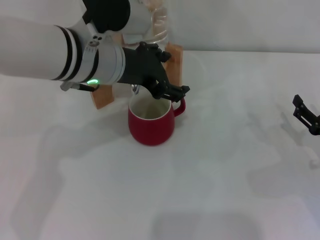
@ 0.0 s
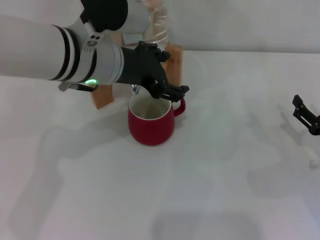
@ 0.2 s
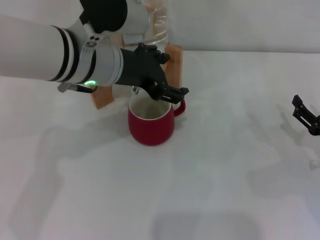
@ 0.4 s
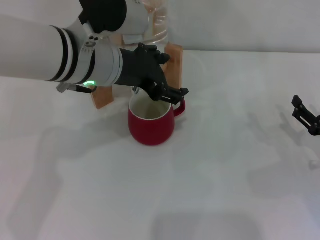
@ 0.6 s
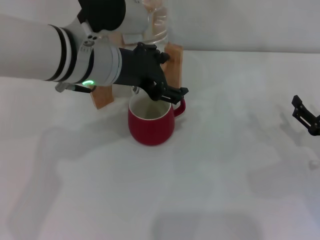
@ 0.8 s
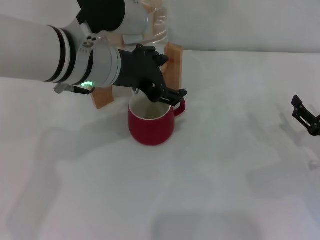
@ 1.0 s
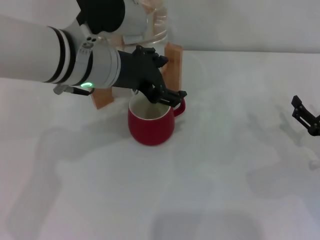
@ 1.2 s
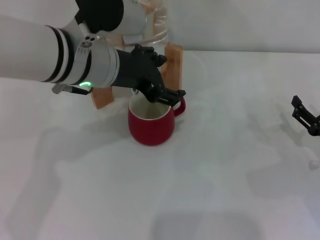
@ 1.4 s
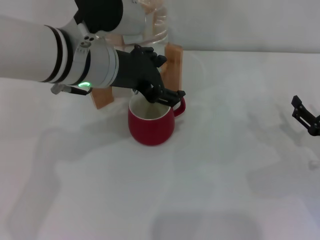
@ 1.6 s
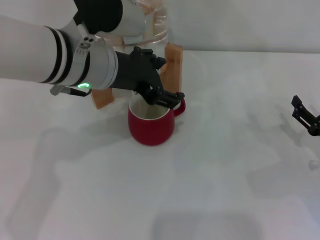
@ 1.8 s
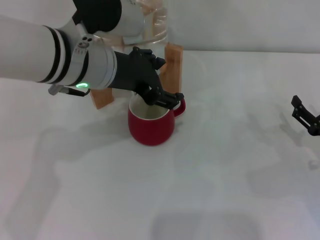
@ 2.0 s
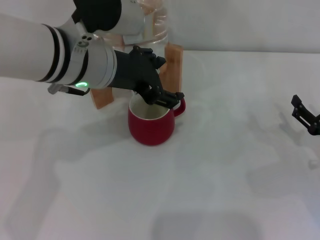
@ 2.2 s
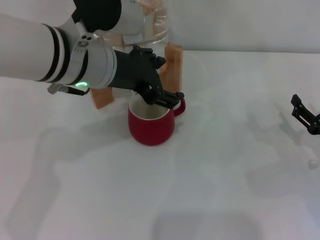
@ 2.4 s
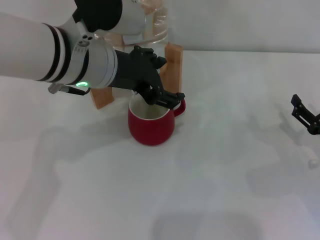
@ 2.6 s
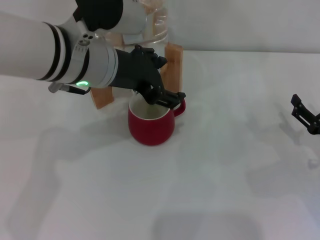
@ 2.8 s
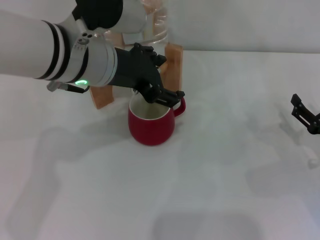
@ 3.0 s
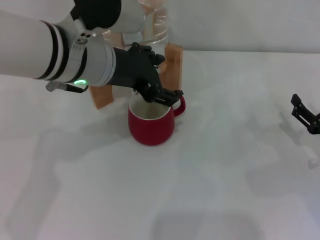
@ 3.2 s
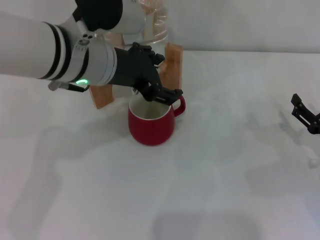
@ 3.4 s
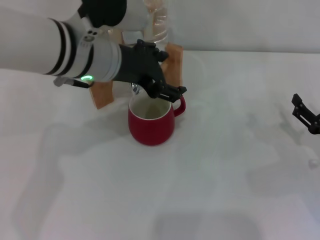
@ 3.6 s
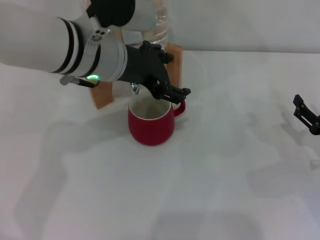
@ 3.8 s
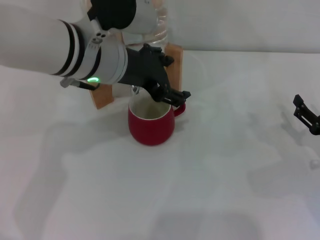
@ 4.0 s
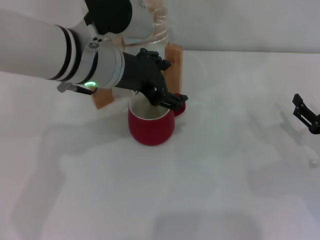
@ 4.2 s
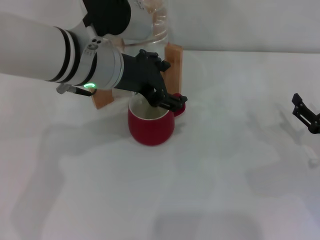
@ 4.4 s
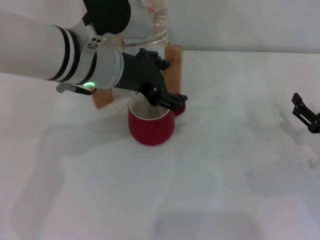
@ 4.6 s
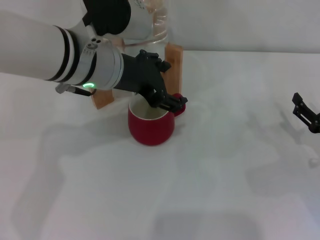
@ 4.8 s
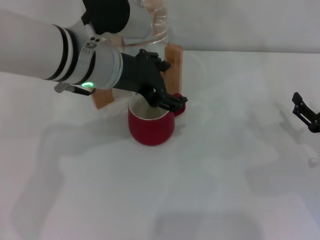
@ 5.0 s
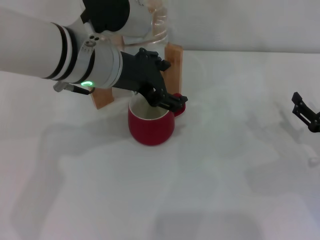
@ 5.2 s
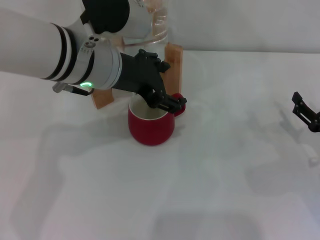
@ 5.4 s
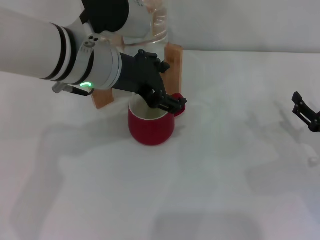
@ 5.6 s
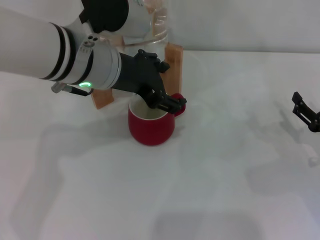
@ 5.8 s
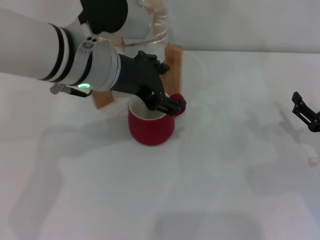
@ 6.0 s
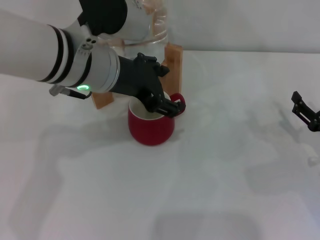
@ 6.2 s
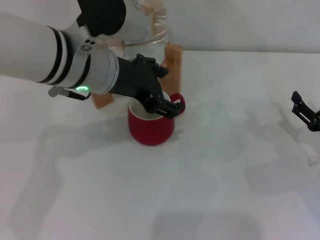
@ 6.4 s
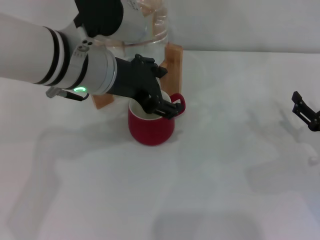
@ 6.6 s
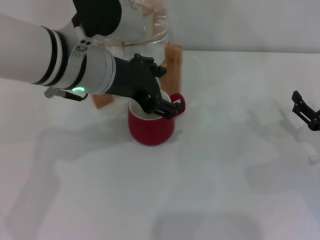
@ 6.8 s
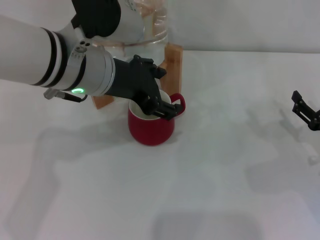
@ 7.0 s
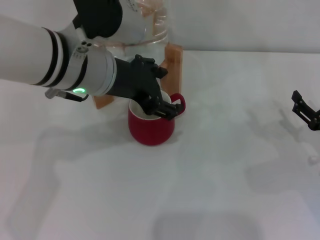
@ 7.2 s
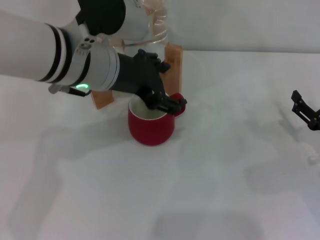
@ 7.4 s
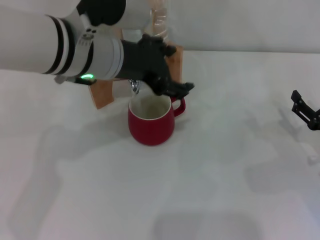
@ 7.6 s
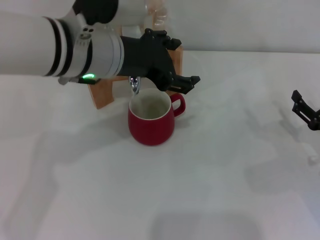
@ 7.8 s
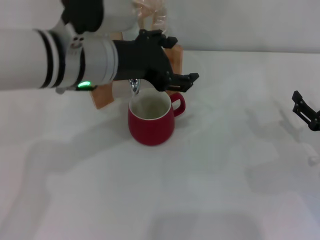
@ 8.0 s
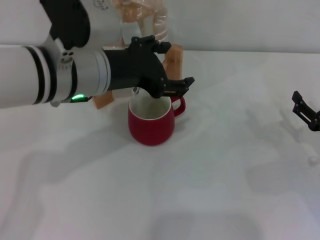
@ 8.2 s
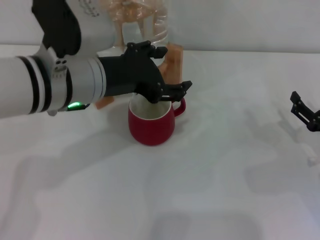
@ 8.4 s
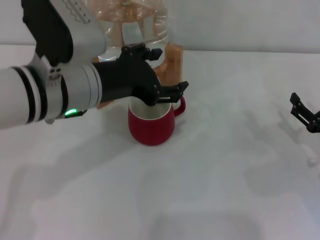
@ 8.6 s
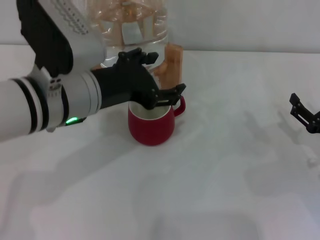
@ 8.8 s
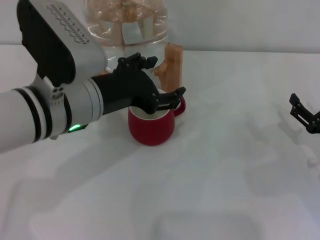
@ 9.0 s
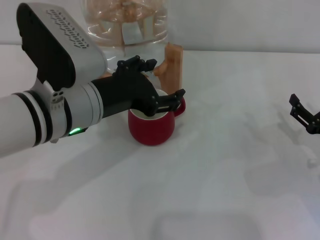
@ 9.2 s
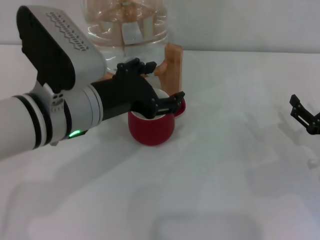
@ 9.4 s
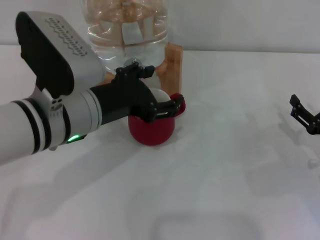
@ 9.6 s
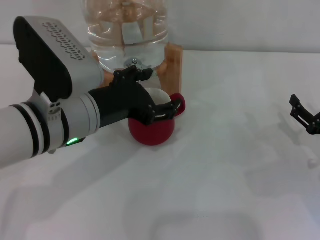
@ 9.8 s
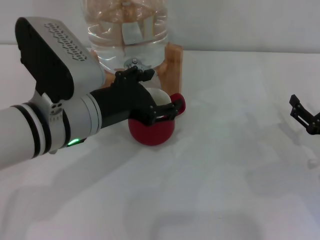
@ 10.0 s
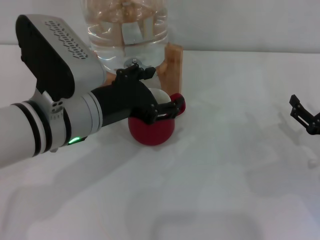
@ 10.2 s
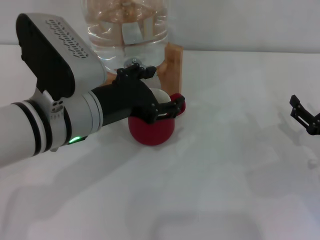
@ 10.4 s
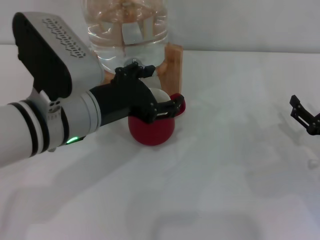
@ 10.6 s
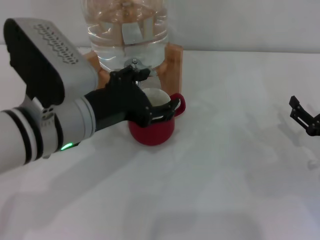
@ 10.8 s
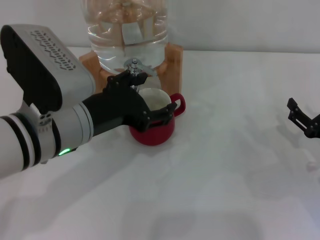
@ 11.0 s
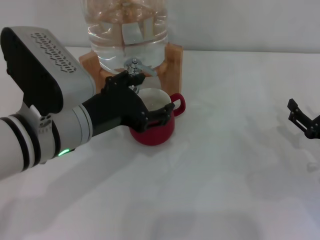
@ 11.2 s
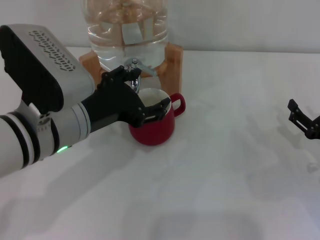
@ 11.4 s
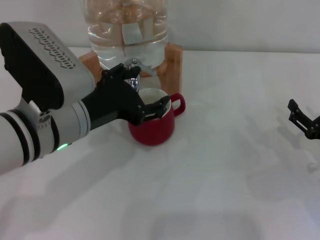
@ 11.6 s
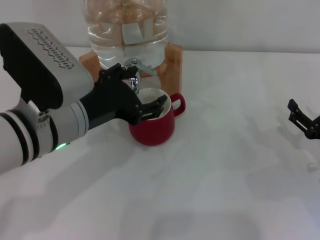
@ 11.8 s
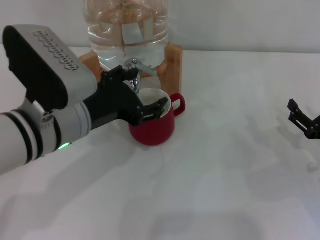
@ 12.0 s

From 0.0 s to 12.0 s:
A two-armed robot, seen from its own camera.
Task of the whole recording: the right gripper pick up the red cup and place it horizontally under the faucet, the left gripper turn on the faucet to fill the cup, and then turn off the faucet.
Step, from 0.0 s to 12.0 s: Open the dispenser valve and fill the cup with water with the left gripper.
From 0.0 s to 1.6 s: Both grippers stay about where they are.
From 1.6 s to 3.0 s: Both grippers stay about where they are.
From 3.0 s to 4.4 s: The grippers move only a little.
From 4.4 s to 6.0 s: Neither gripper changes place.
From 6.0 s to 7.6 s: The grippers make only small movements.
From 7.6 s to 9.0 s: The left gripper travels backward by approximately 5 cm.
From 9.0 s to 12.0 s: There are only small adjustments of the grippers.

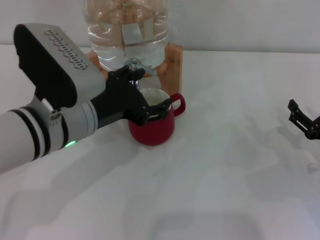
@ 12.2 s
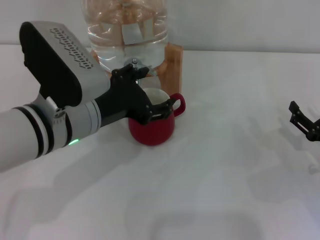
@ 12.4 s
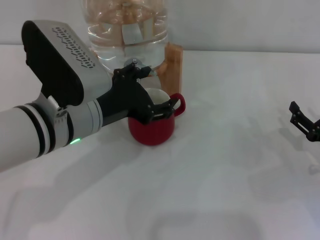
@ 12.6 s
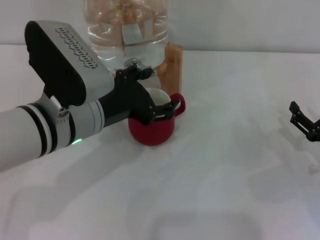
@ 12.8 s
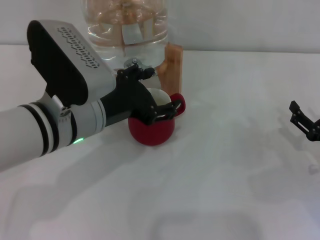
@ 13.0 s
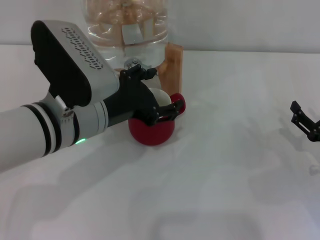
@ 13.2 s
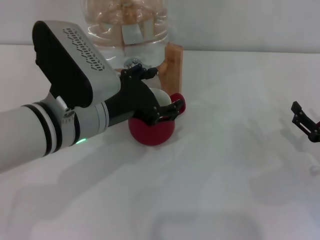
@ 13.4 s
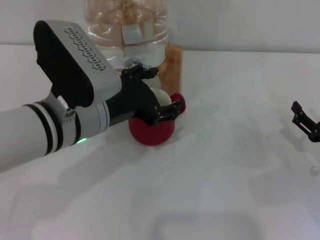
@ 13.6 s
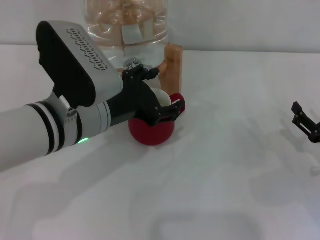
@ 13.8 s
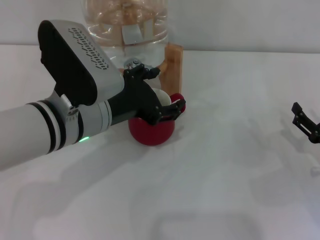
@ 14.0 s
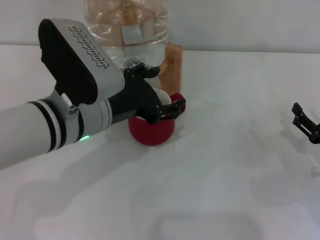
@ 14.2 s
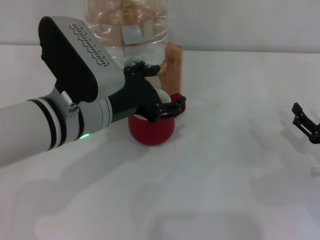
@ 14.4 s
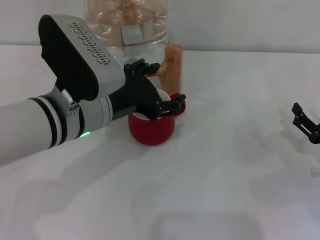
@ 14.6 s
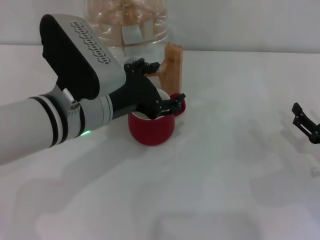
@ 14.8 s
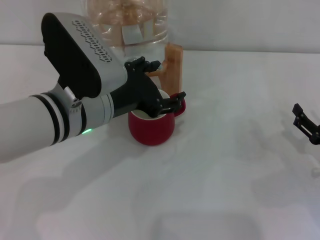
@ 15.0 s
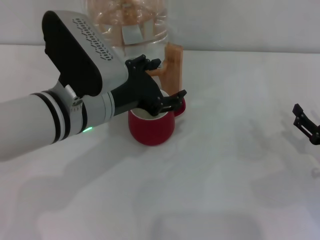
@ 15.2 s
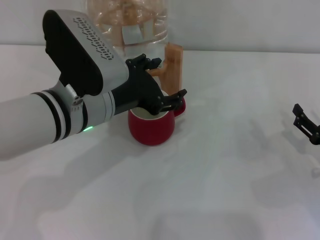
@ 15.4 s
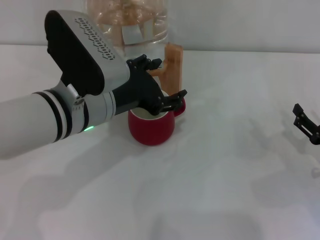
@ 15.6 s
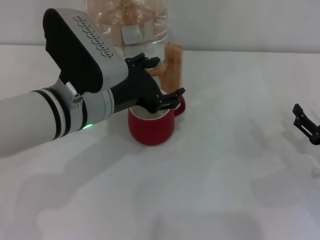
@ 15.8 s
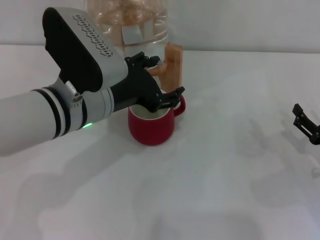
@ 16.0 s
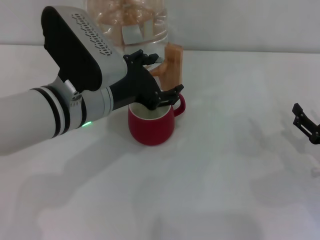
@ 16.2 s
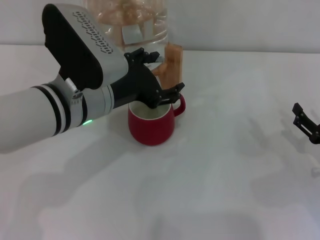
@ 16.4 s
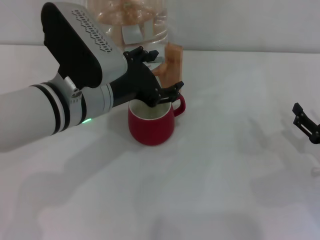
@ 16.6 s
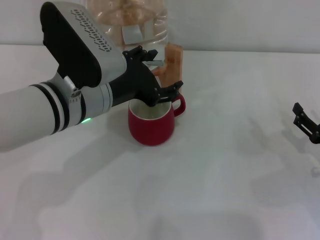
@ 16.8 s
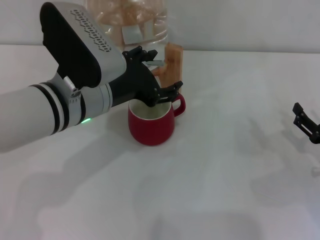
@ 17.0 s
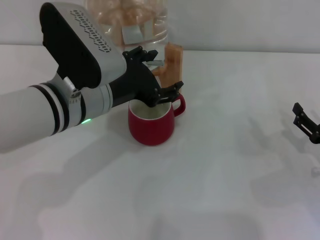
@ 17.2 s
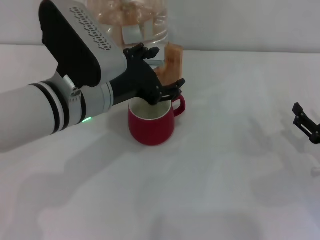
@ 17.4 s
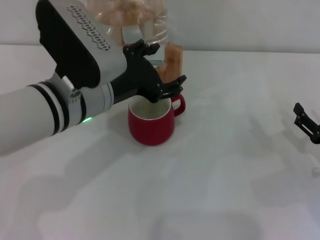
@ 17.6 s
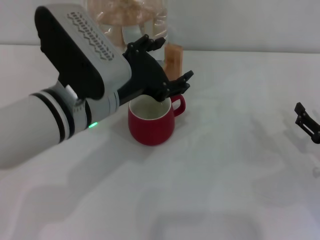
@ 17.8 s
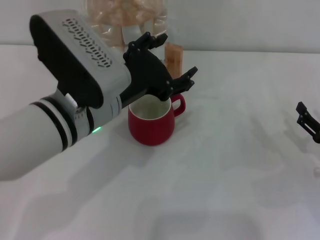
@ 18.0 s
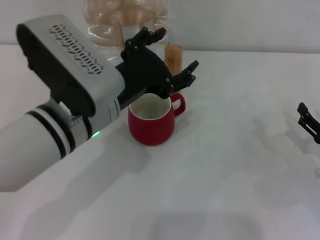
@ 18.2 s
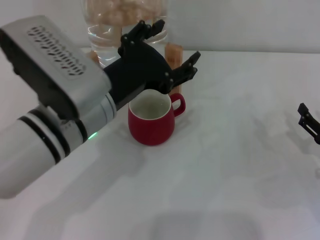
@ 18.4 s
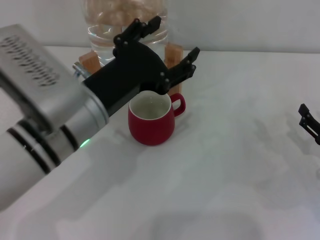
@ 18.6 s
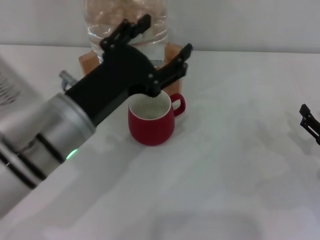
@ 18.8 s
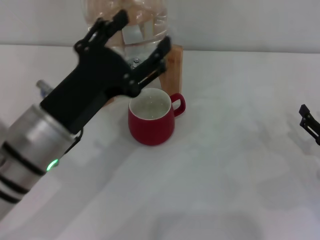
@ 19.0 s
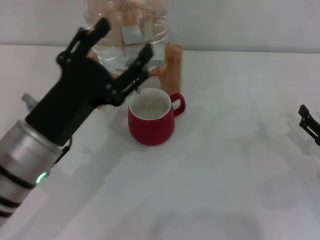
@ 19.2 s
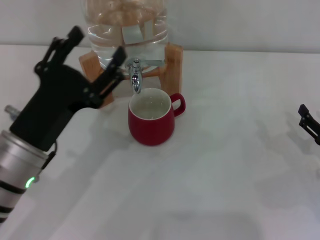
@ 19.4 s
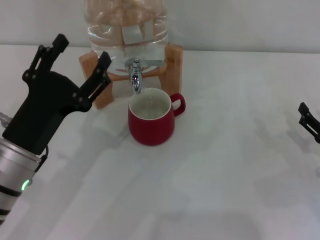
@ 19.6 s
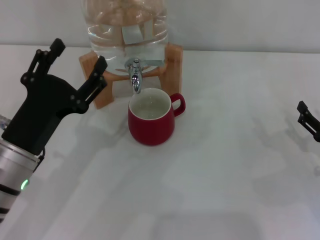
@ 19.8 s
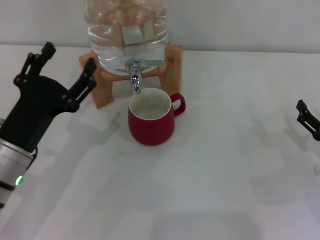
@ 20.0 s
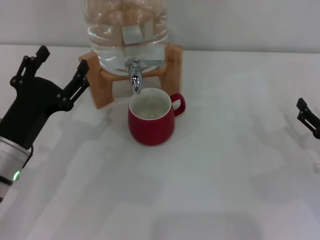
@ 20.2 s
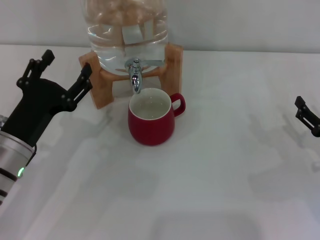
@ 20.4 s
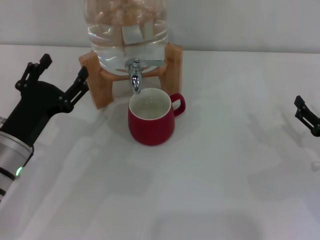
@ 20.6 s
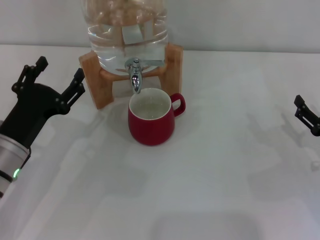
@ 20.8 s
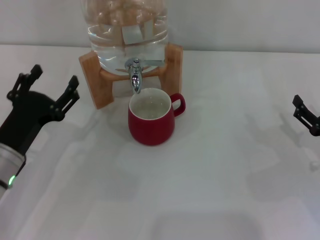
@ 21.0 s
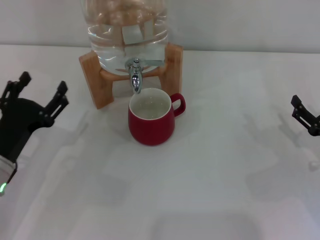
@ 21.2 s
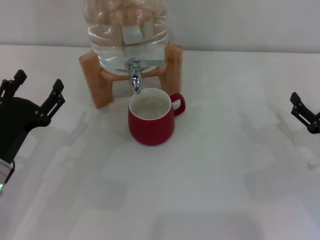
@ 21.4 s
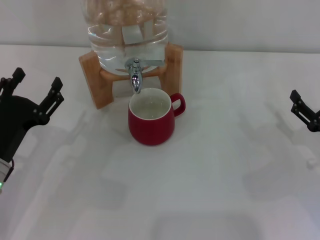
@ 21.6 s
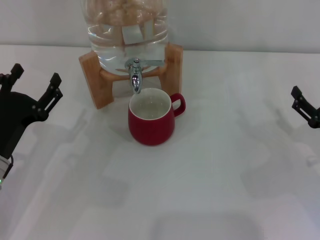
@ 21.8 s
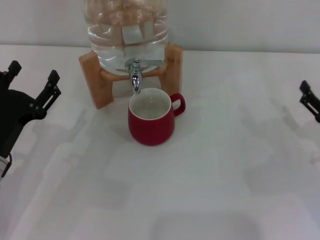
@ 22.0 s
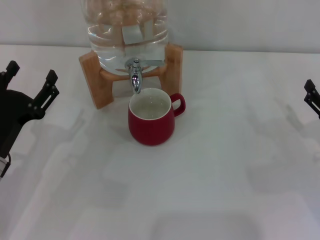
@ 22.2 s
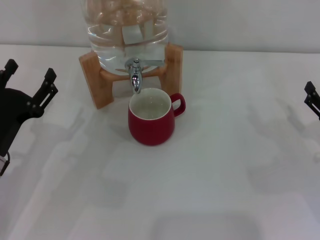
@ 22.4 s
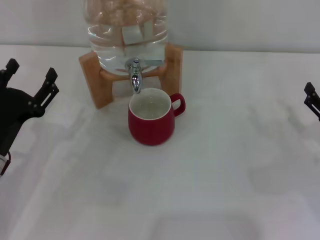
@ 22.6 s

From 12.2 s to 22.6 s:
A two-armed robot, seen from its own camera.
Task of the whole recording: the right gripper pick up the red cup and place it horizontally under the faucet, the left gripper turn on the faucet to fill the cup, and then turn off the faucet.
Step, from 12.2 s to 20.0 s: Close the dispenser valve with the left gripper.
From 12.2 s to 13.6 s: Both grippers stay about where they are.
From 13.6 s to 15.2 s: The grippers move only a little.
From 15.2 s to 16.6 s: Neither gripper changes place.
From 16.6 s to 18.2 s: The grippers stay close to where they were, moving slightly.
From 18.2 s to 19.6 s: The left gripper moves to the left and downward, approximately 10 cm.
From 19.6 s to 21.2 s: The left gripper moves downward and to the left, some 10 cm.
From 21.2 s to 22.6 s: The grippers move only a little.
